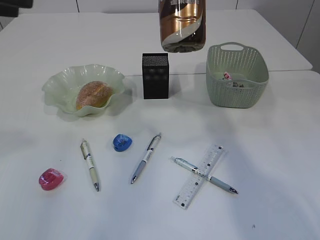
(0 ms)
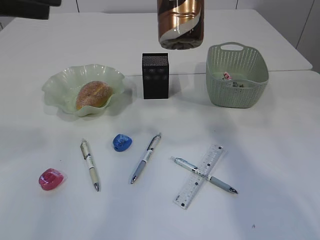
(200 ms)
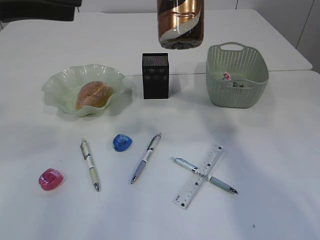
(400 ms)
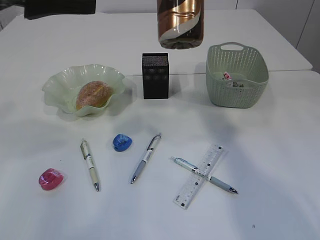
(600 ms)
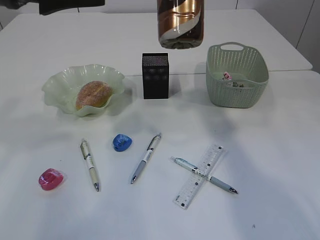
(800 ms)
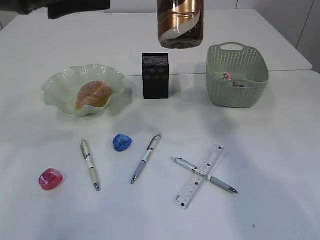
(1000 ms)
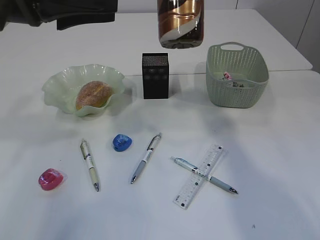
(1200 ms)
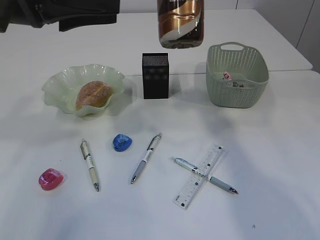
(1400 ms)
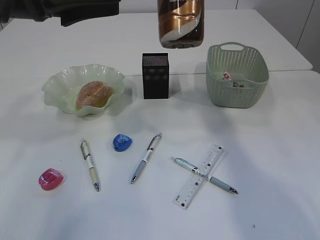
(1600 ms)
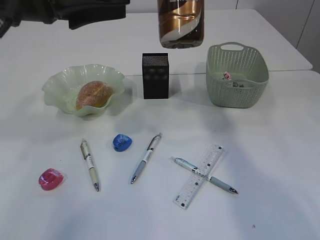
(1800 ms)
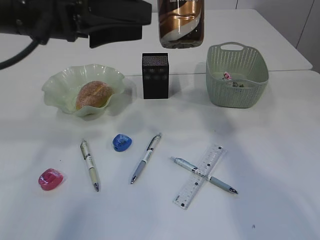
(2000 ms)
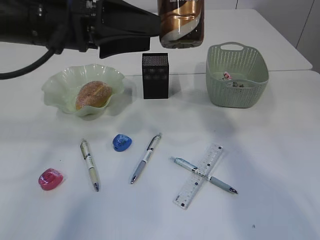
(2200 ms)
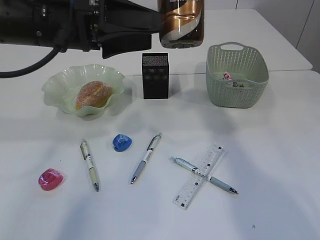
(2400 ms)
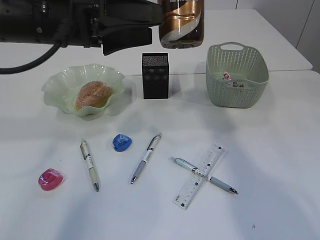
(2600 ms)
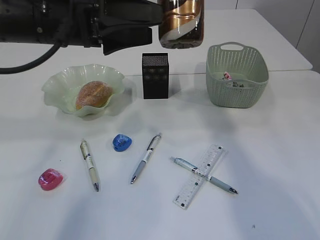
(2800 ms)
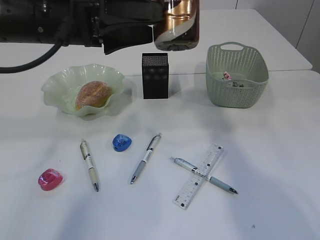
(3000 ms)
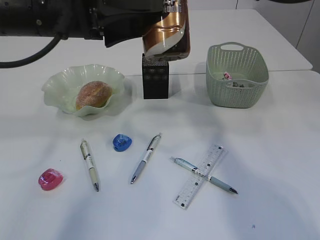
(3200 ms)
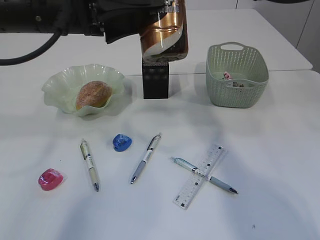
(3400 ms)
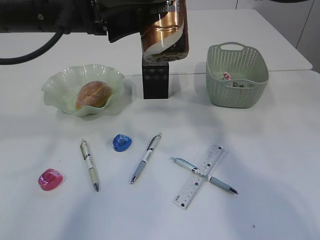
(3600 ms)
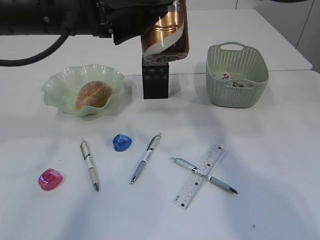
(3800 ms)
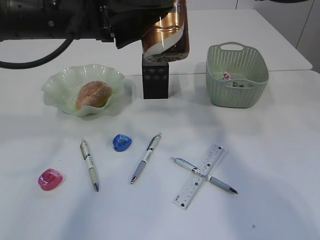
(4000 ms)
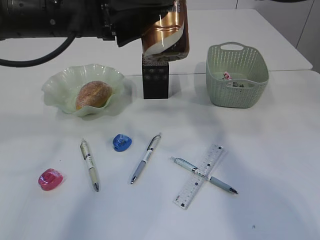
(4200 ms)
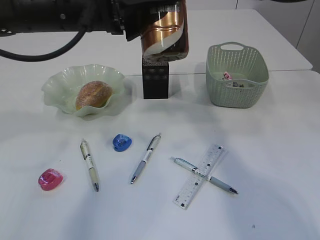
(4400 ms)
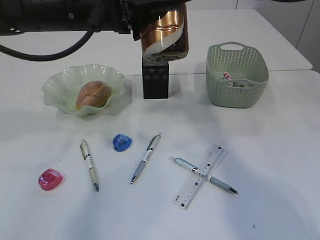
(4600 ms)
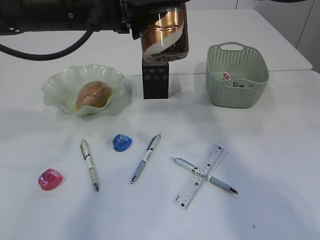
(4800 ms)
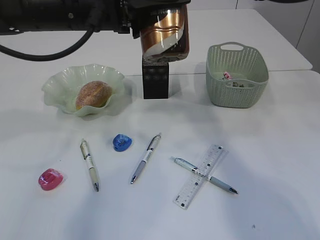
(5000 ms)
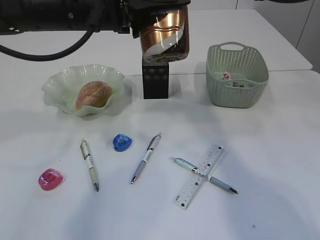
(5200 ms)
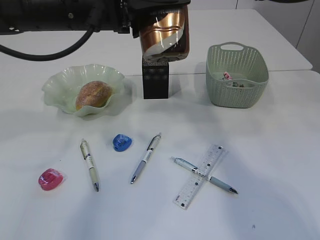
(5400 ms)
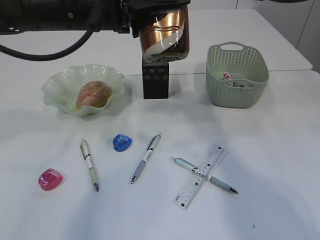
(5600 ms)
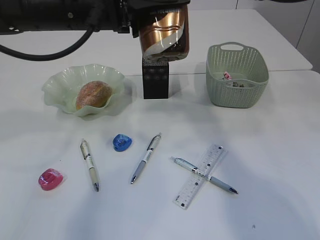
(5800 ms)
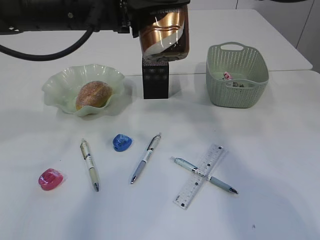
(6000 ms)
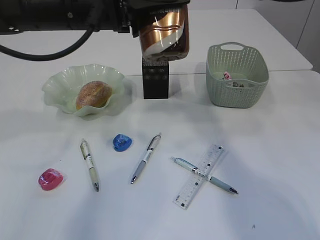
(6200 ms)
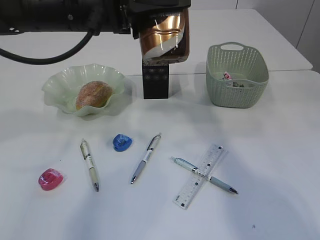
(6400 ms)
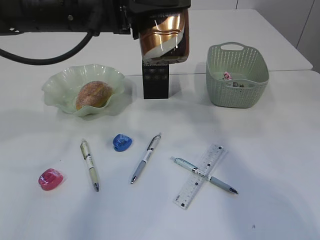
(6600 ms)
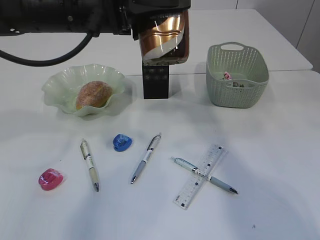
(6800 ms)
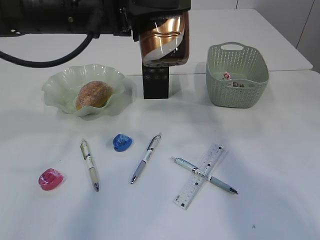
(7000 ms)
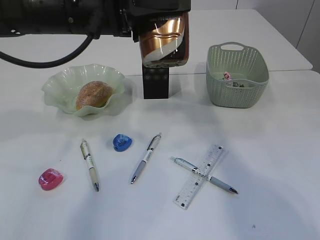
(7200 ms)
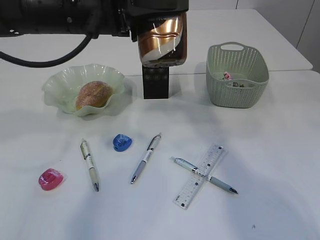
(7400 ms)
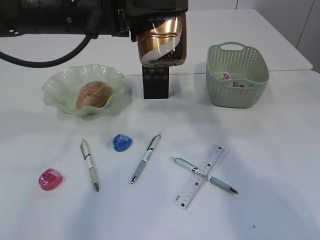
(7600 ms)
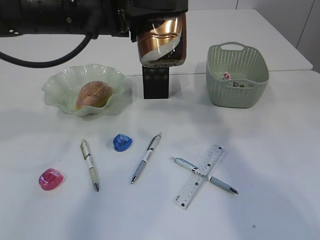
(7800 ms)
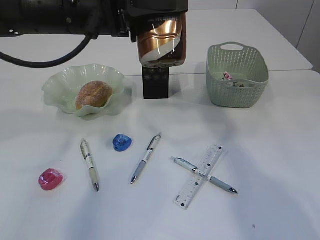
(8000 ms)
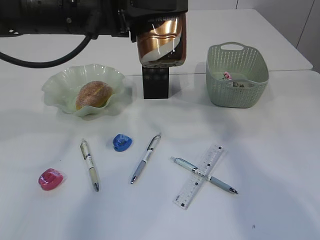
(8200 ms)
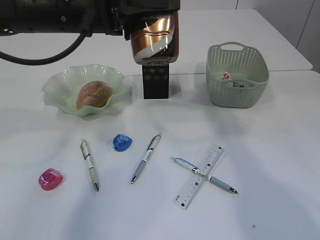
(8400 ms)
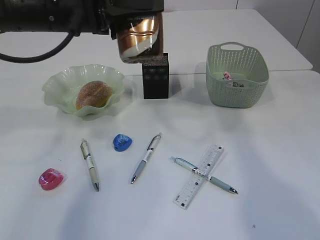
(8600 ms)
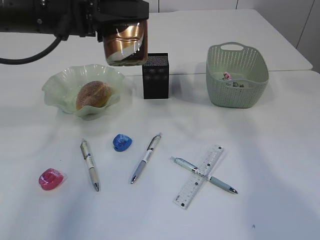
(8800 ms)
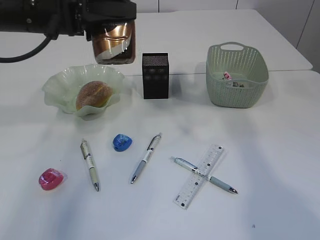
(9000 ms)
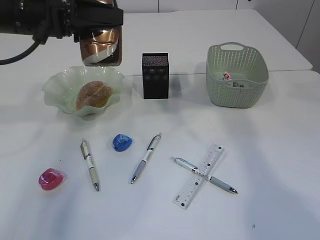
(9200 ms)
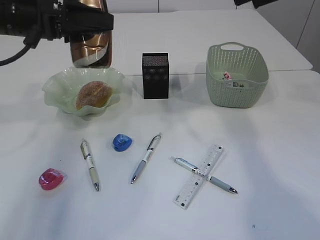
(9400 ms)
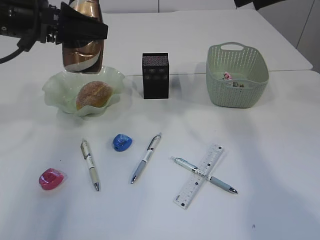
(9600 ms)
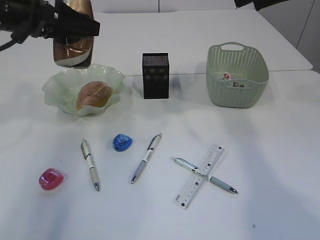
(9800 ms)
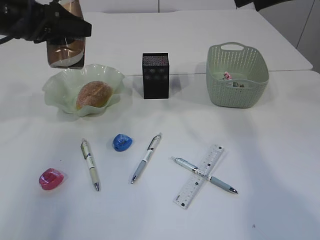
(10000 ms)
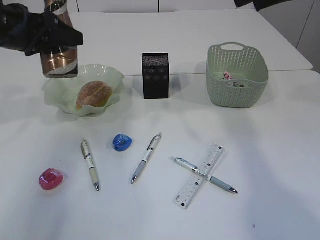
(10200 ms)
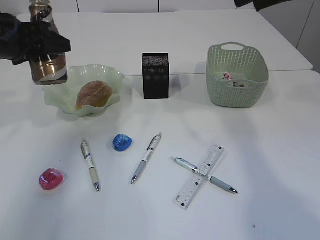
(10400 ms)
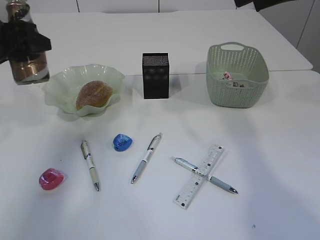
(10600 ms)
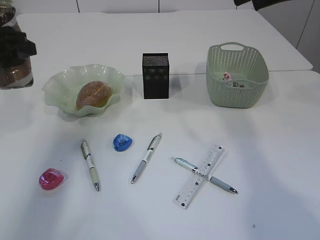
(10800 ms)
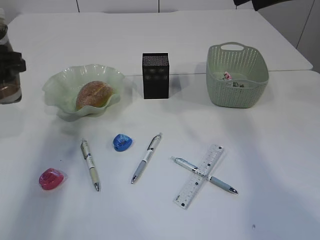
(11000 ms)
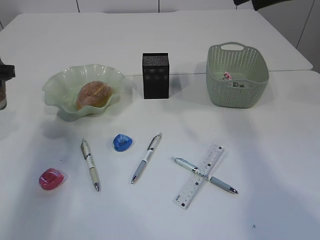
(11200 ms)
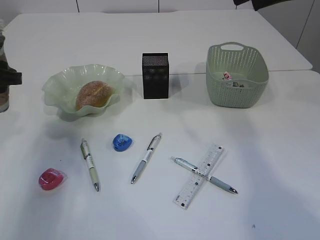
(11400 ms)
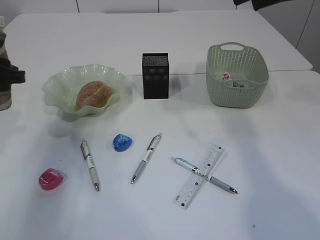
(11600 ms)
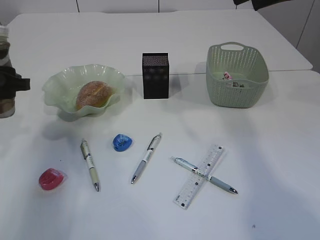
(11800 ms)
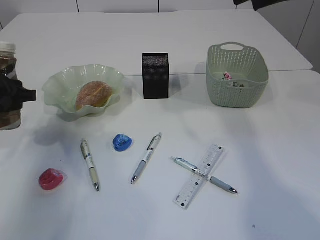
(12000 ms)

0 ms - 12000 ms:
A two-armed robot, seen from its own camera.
Step, 0 ms - 9200 ms: transfer the bottle to the left arm.
0 ms - 1600 ms: The left gripper moves forward and downward, about 10 cm.
1600 ms - 3000 ms: The left gripper shifts by about 5 cm, and opens its fingers.
3000 ms - 4400 ms: The grippers stay close to where they were, moving slightly.
4400 ms - 6000 ms: The left gripper closes up.
6000 ms - 7600 ms: The right gripper opens its fingers.
7600 ms - 9000 ms: The left gripper shifts roughly 5 cm to the left. Meanwhile the right gripper moves to the right, approximately 10 cm.
9000 ms - 10400 ms: The left gripper moves to the left, approximately 10 cm.
10400 ms - 12000 ms: The left gripper travels downward by some 10 cm.

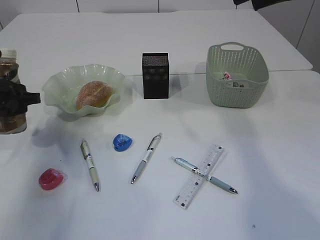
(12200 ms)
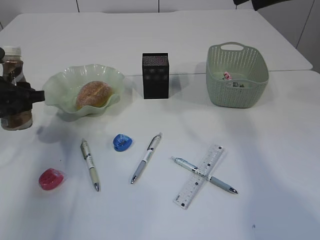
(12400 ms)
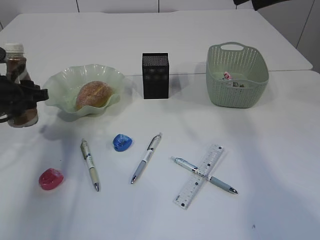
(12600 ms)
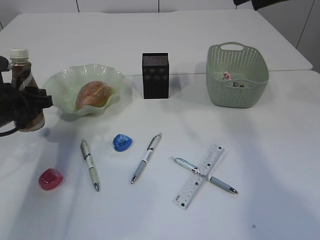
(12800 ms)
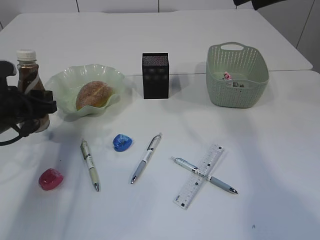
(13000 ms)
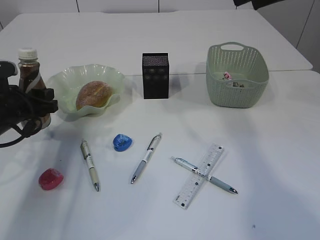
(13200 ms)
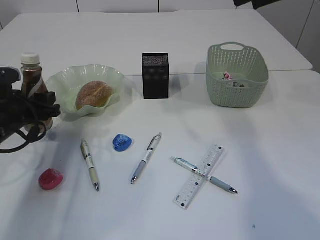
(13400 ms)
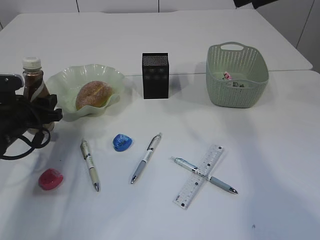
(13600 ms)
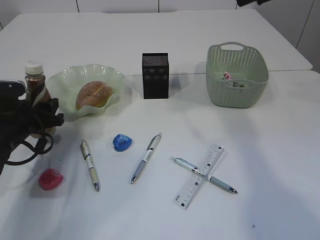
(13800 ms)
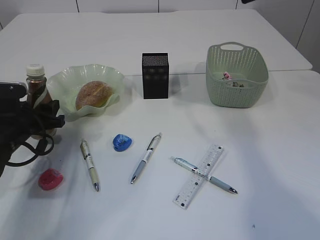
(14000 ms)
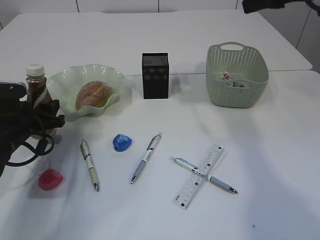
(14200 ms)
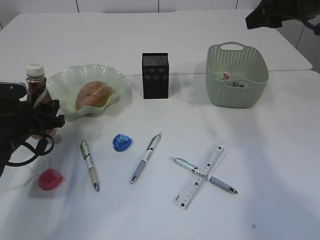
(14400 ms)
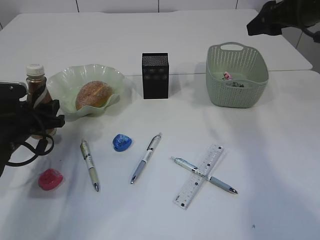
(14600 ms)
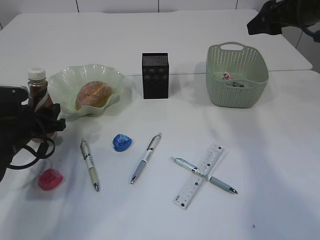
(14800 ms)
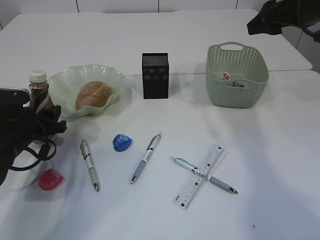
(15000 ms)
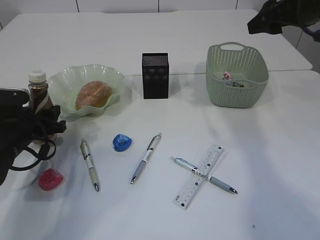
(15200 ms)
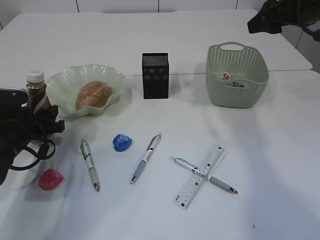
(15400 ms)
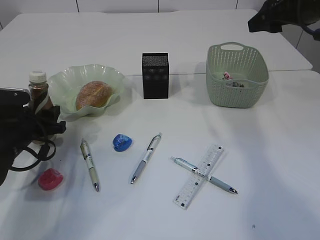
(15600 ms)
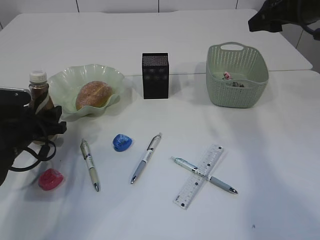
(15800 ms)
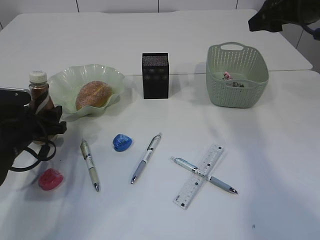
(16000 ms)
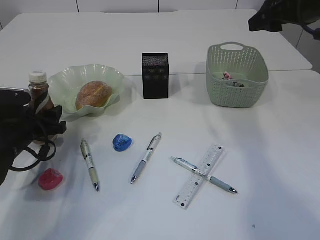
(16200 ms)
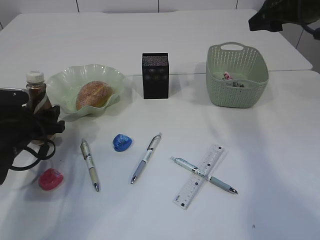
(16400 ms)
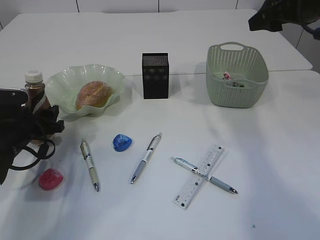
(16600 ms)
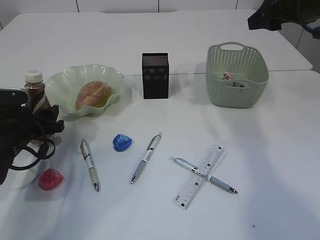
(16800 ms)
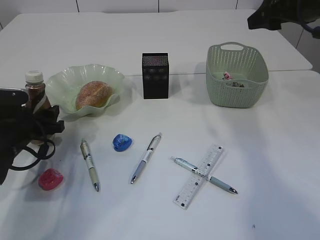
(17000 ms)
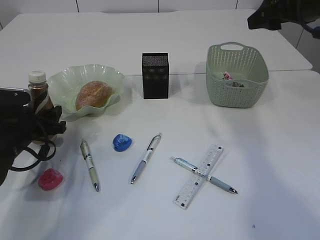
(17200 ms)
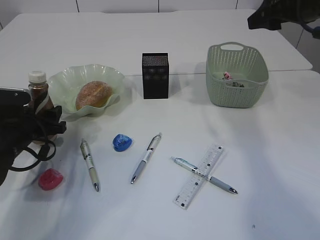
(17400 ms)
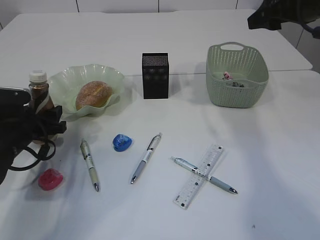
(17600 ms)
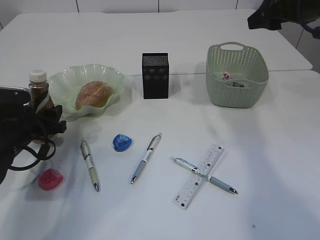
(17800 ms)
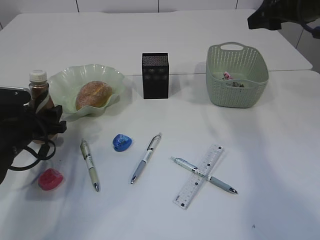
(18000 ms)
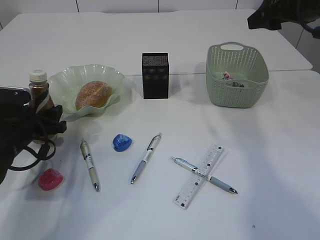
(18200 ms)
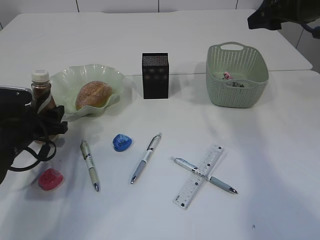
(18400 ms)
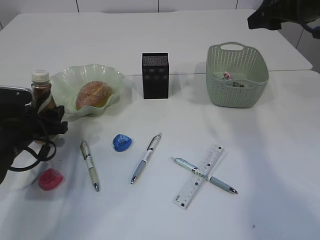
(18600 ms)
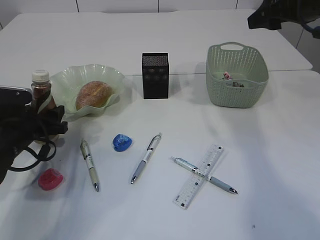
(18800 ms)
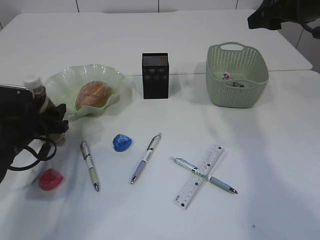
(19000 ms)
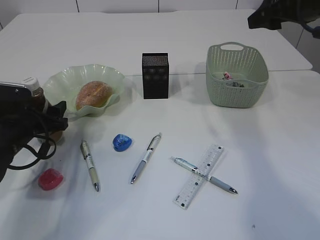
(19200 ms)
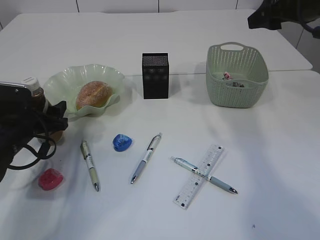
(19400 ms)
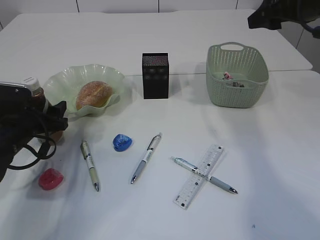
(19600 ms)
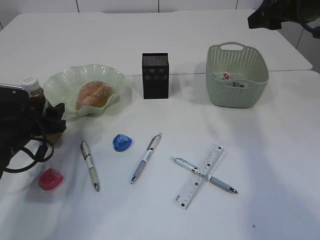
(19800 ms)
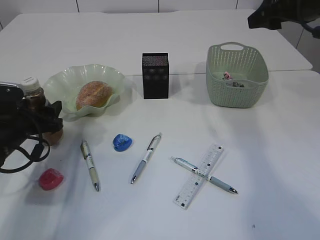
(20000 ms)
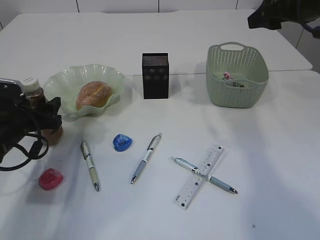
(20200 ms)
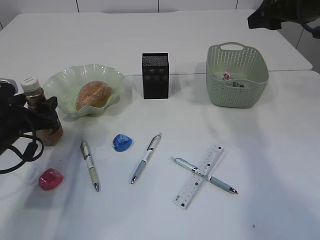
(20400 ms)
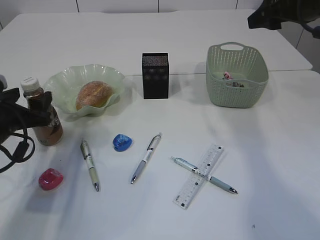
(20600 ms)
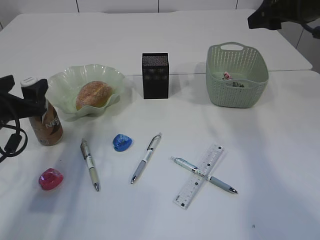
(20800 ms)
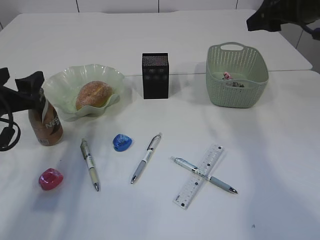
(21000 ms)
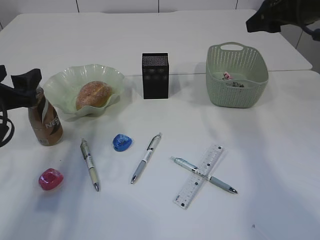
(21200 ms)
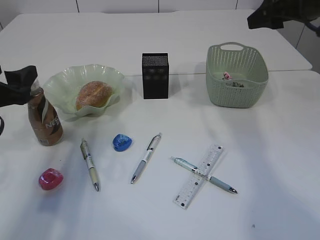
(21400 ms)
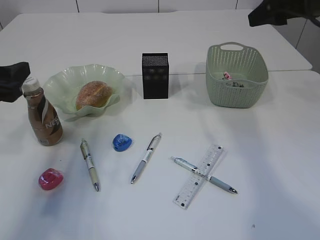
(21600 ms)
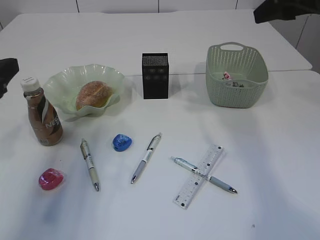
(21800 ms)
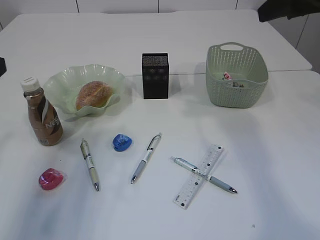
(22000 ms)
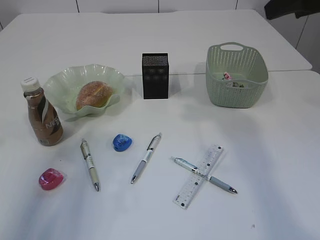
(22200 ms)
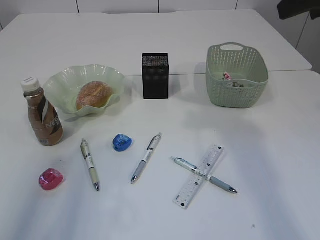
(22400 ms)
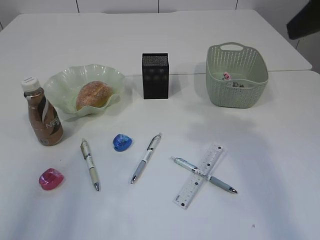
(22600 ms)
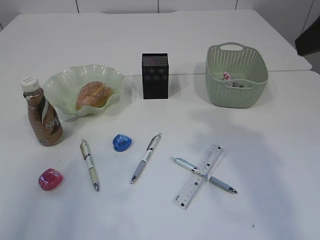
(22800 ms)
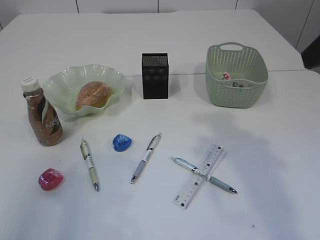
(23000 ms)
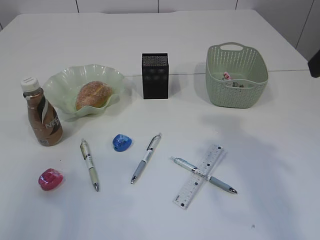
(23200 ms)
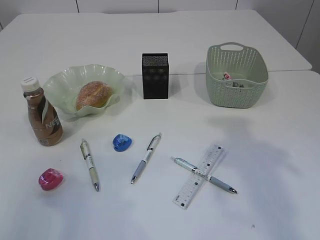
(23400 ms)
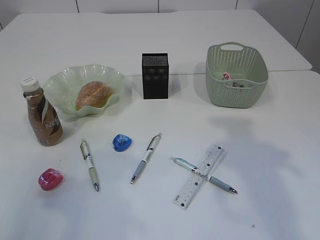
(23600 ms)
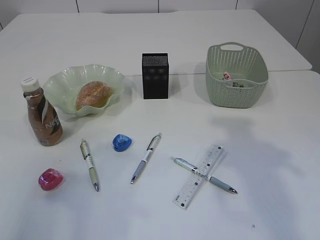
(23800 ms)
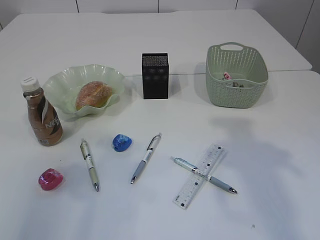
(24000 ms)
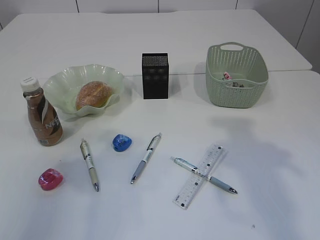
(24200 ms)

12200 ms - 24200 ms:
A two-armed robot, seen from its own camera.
Step, 12200 ms - 21600 ms: Place the bottle.
12200 ms - 13800 ms: The left gripper shifts roughly 5 cm downward.
13800 ms - 15200 ms: The right gripper moves downward, roughly 5 cm.
15200 ms - 19800 ms: Both grippers stay put.
19800 ms - 21200 ms: The left gripper travels upward and backward by approximately 10 cm.
21200 ms - 22600 ms: Both grippers travel together backward and upward, some 15 cm.
22600 ms - 24200 ms: The right gripper changes place by about 5 cm.
